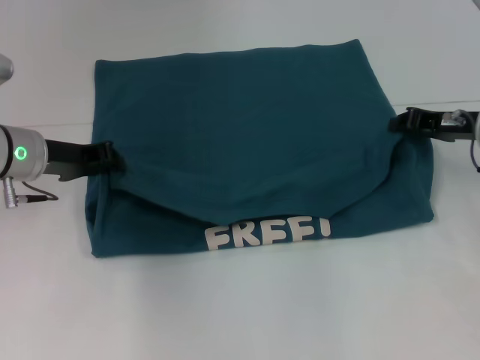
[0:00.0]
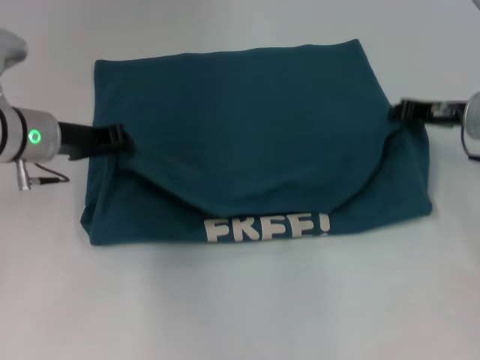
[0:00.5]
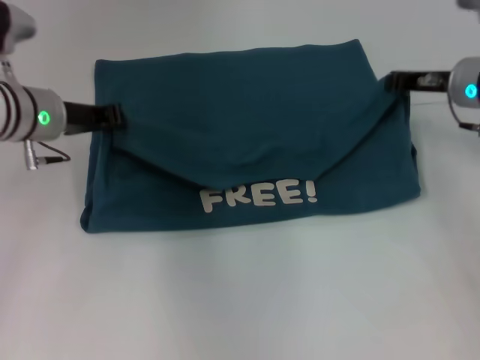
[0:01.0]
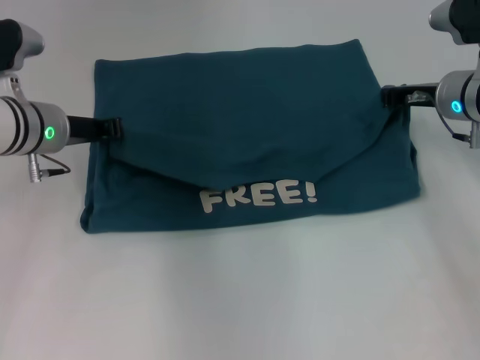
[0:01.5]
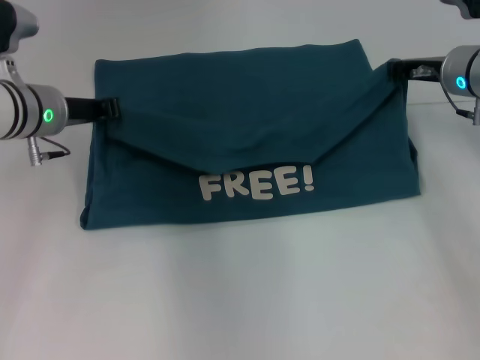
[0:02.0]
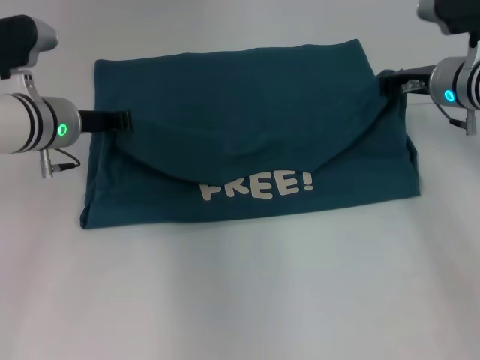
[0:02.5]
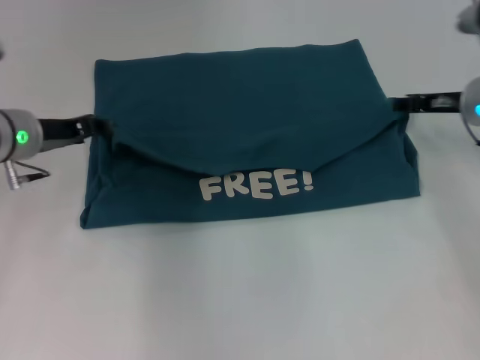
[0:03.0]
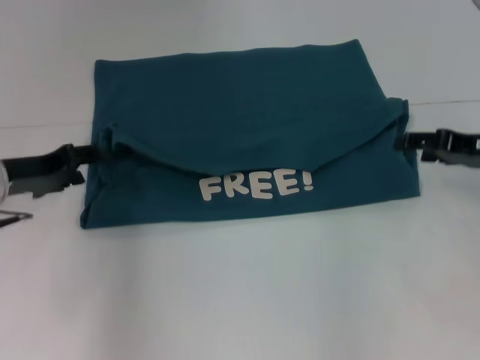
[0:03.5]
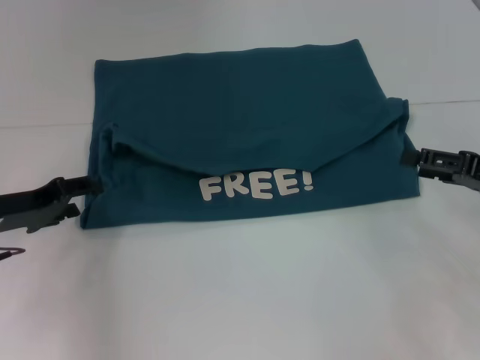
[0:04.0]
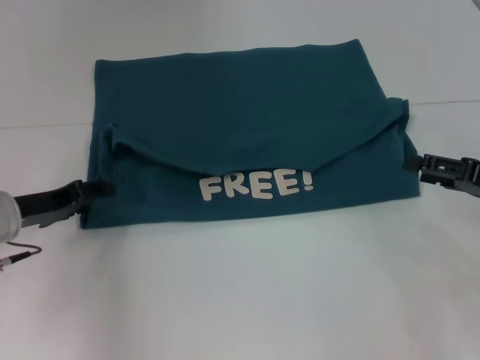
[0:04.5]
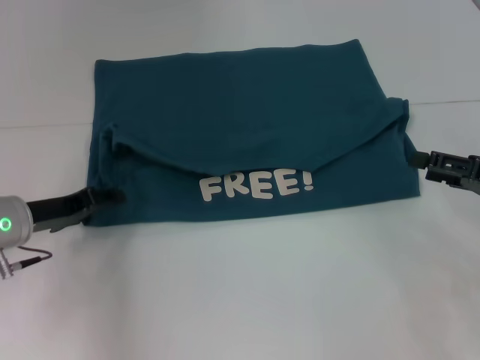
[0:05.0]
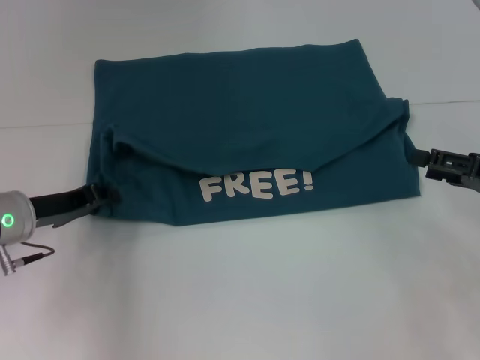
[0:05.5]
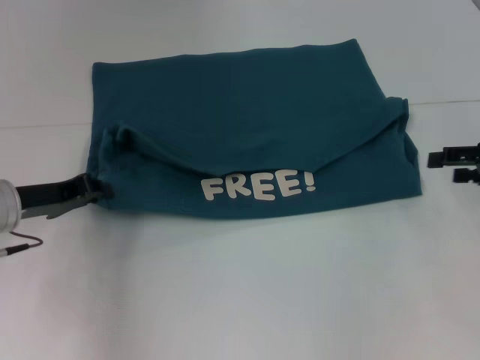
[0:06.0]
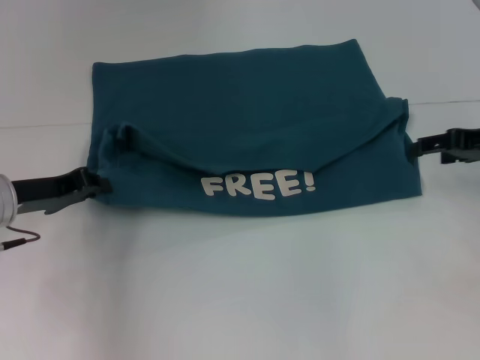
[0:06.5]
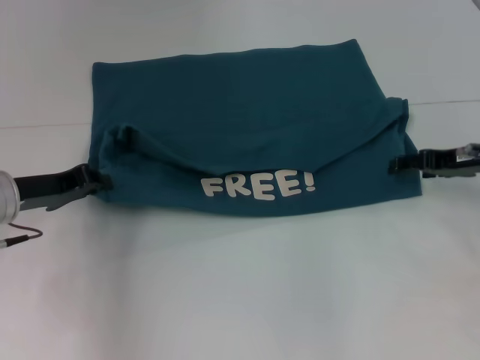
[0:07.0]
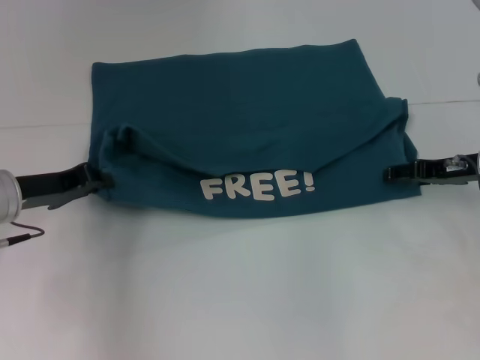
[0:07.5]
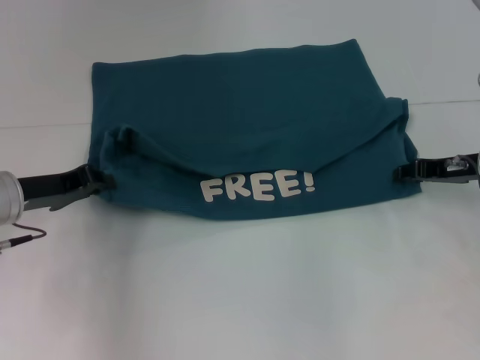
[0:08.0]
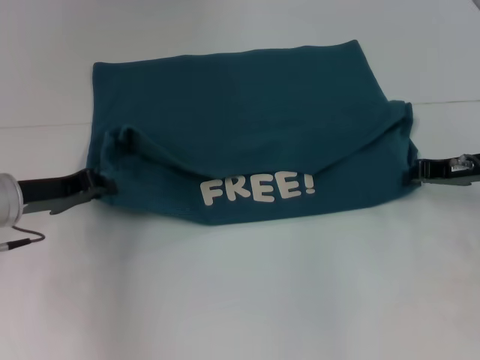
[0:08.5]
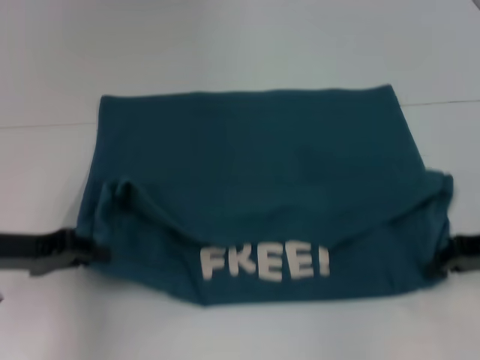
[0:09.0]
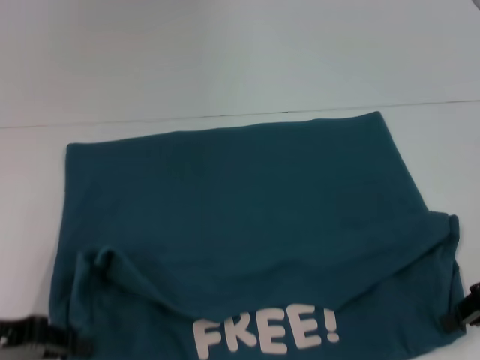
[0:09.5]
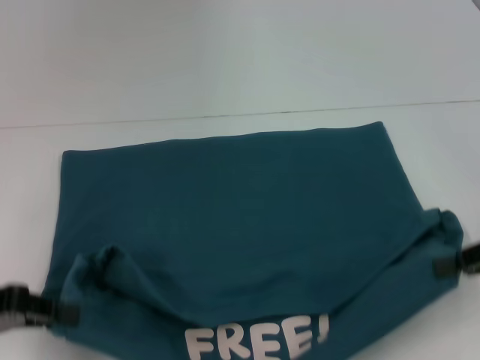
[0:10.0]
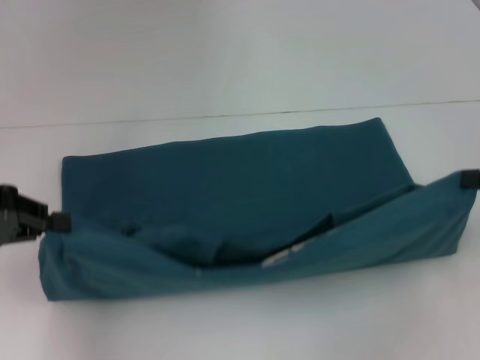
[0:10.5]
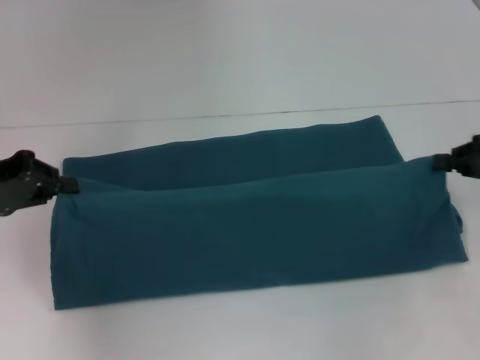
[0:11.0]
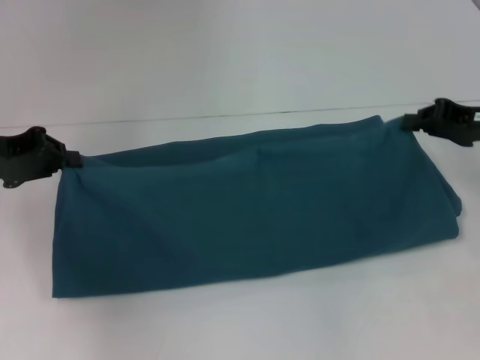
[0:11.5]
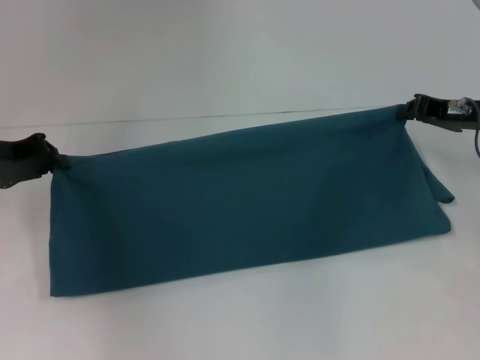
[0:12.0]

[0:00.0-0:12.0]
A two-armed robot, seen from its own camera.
Step, 0:00.0 to 0:03.0: Fold the clothes to the left.
Step, 0:00.0 to 0:03.0: Fold the clothes to the right.
Step, 0:03.5 to 0:09.5: Pull the clothes with your left hand.
Step, 0:03.5 to 0:09.5: Pull the clothes with your right hand.
0:00.0 to 0:02.0: The right gripper shifts roughly 5 cm forward.
0:02.0 to 0:04.0: The right gripper moves backward and to the right, about 15 cm, and opens its fingers, while the left gripper shifts some 15 cm backward, to the left and downward, and opens.
0:04.0 to 0:06.0: The left gripper closes its fingers.
0:06.0 to 0:08.0: The right gripper moves to the left, about 5 cm.
0:08.0 to 0:10.0: The left gripper is displaced backward and to the left by some 10 cm; the right gripper is displaced backward by approximately 10 cm, and closes its fingers.
0:10.0 to 0:12.0: Both grippers move forward, some 15 cm.

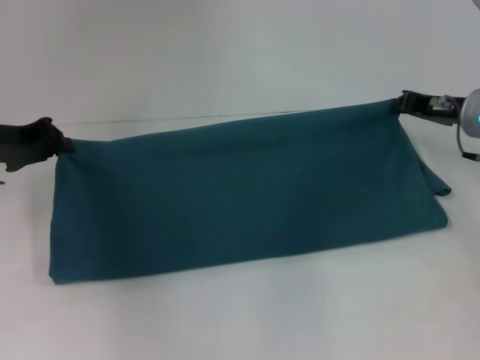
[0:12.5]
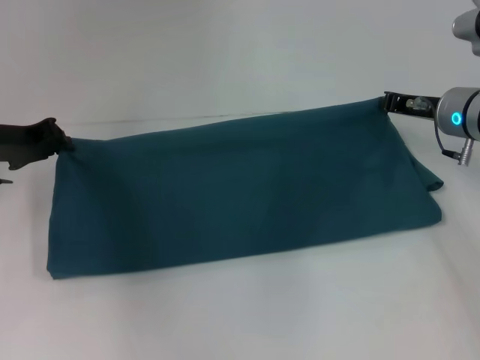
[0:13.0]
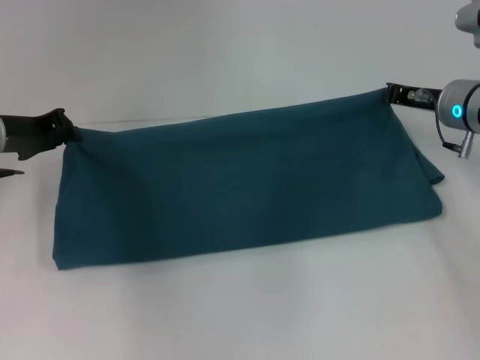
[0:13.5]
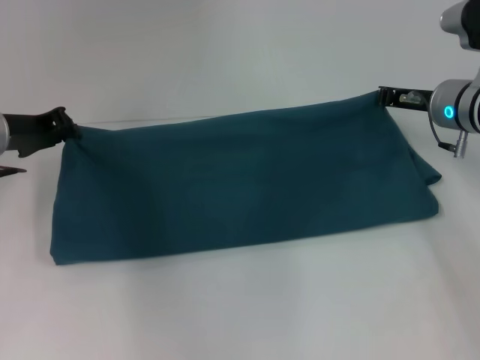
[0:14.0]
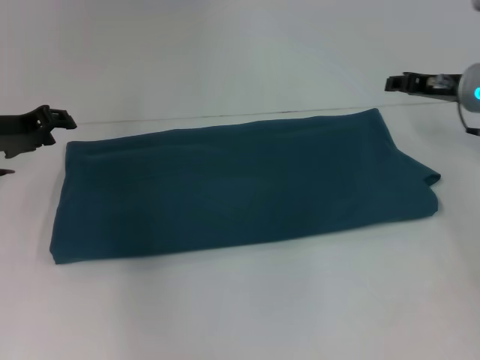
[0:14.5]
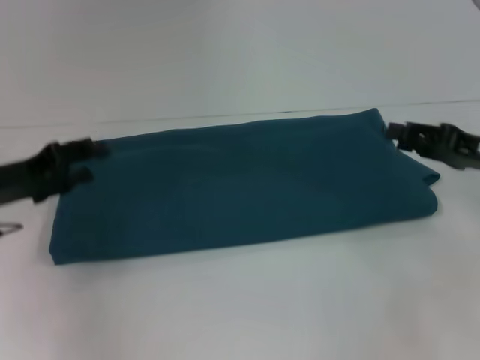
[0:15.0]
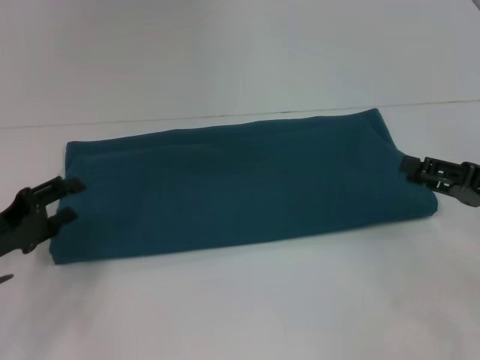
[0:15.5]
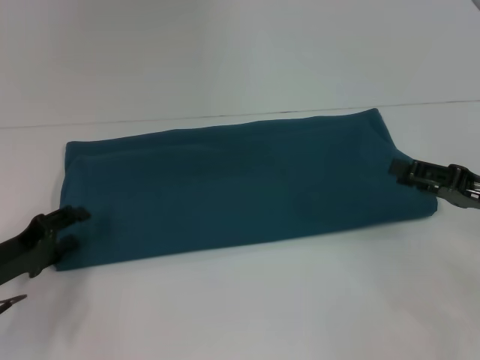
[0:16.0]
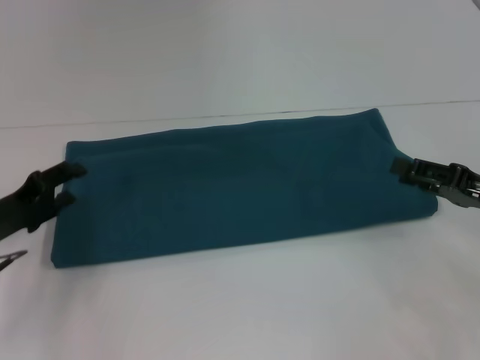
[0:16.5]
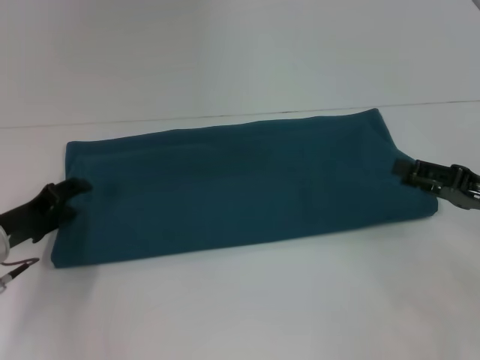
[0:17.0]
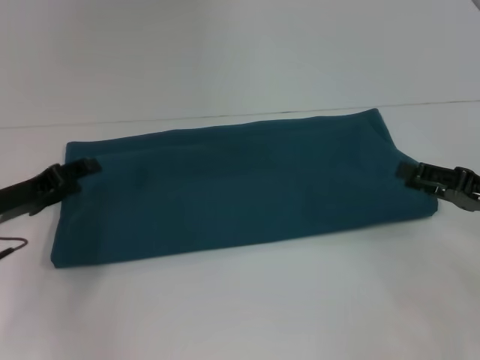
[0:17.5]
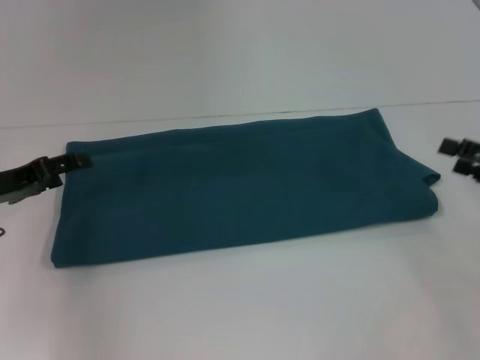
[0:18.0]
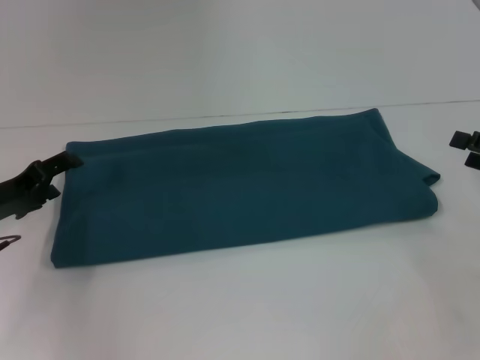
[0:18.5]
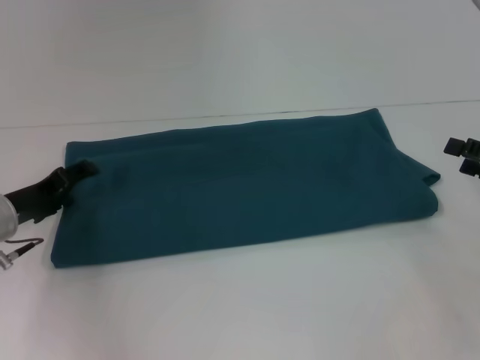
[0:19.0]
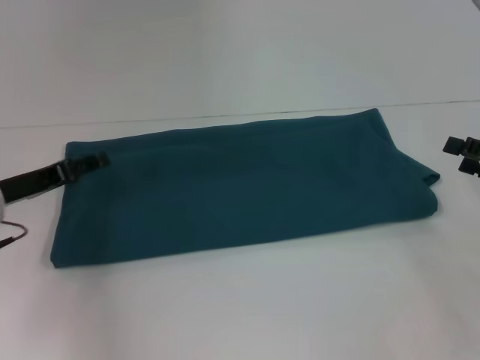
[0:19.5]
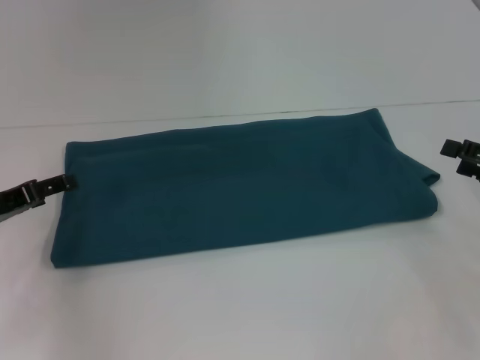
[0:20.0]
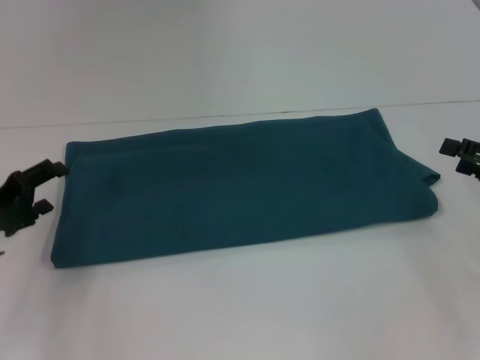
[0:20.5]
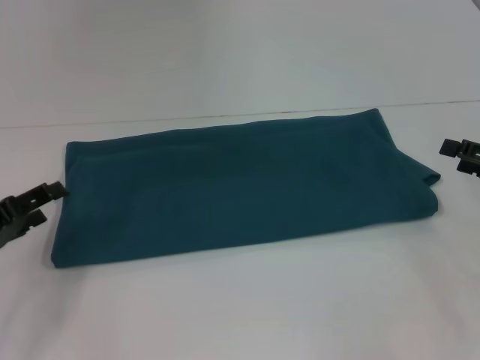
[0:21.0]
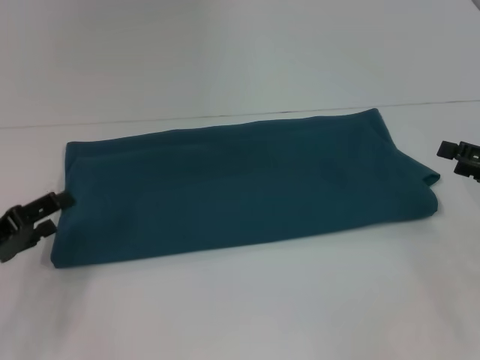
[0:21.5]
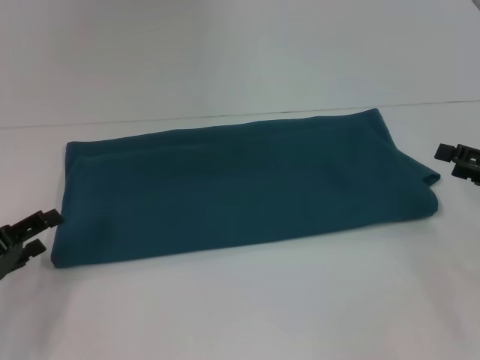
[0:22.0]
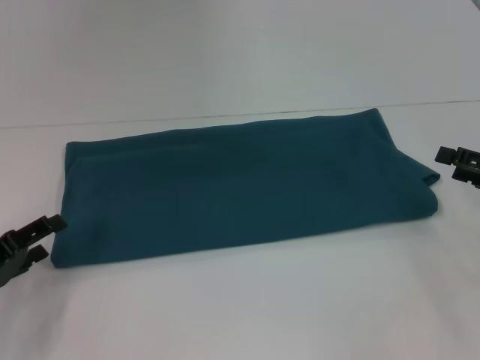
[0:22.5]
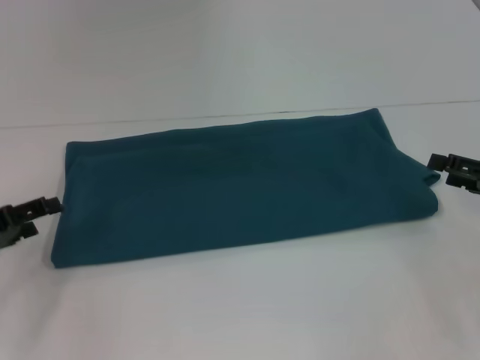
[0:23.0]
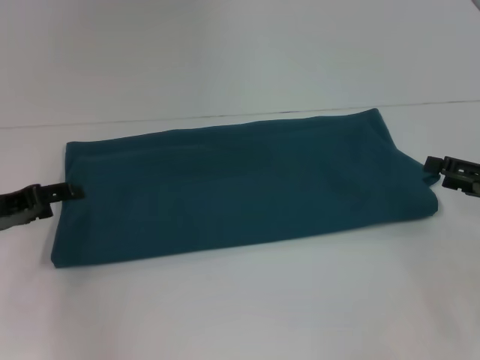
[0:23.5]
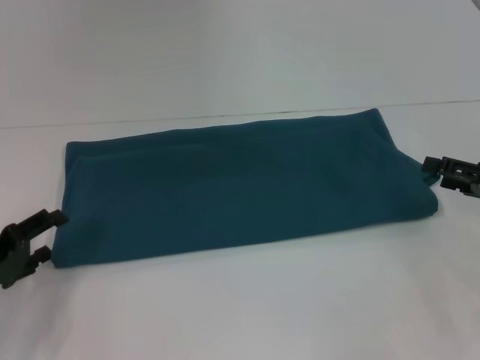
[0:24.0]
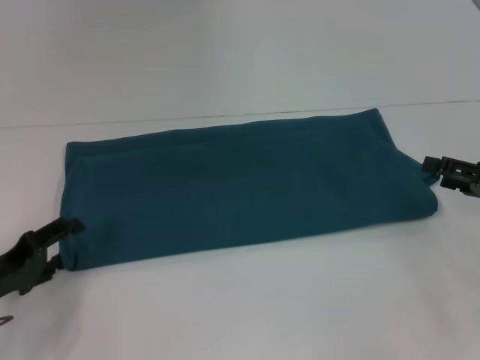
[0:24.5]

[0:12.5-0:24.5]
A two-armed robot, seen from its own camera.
0:12.5 to 0:14.5: The grippers stay close to where they were, moving slightly.
0:14.5 to 0:16.5: The right gripper travels backward by some 15 cm; the left gripper heads backward and downward, covering some 10 cm, and opens up.
0:16.5 to 0:18.5: The right gripper heads to the right, covering roughly 5 cm.
0:20.5 to 0:22.5: The left gripper moves backward, about 5 cm.
0:22.5 to 0:24.5: The left gripper travels forward and back again, roughly 10 cm each way.

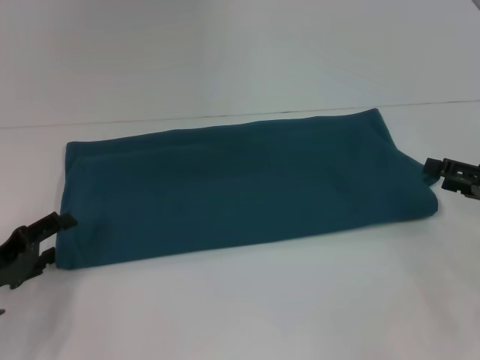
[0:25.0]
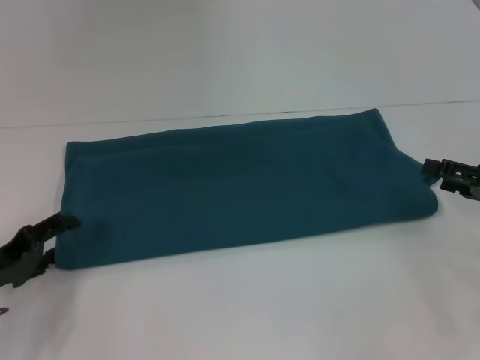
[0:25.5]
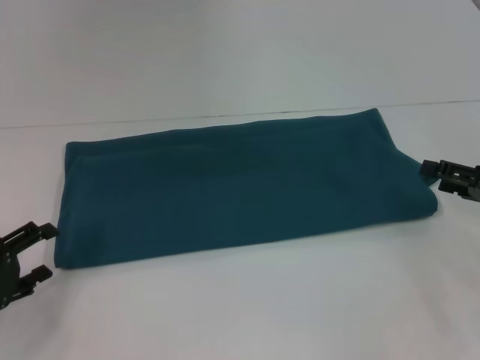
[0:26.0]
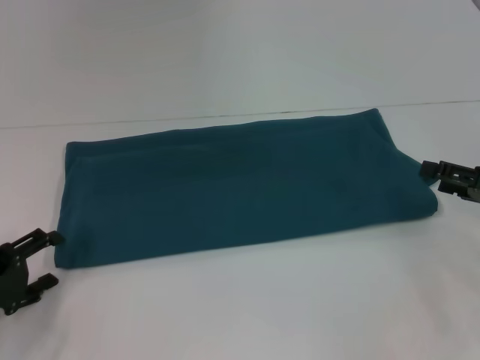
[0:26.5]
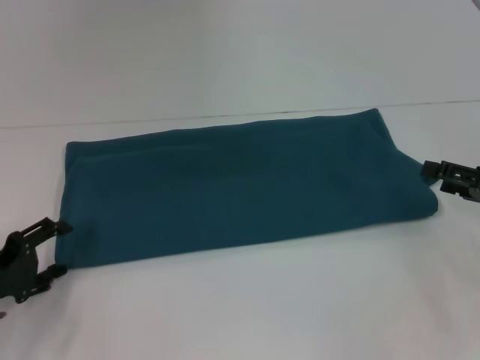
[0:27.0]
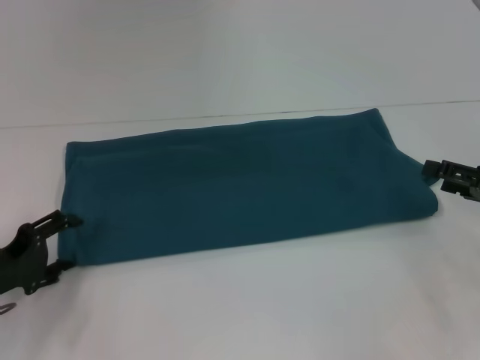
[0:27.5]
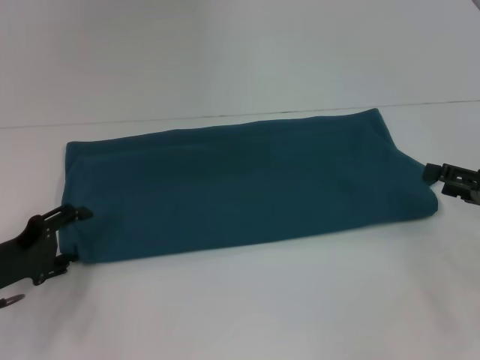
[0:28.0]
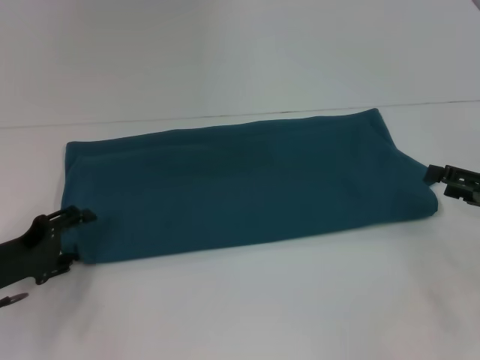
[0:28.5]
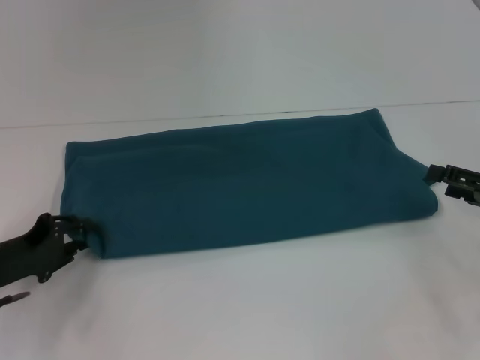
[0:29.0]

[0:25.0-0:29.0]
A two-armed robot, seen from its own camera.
0:25.0 to 0:27.0: There are only small adjustments of the grippers.
0:27.0 to 0:29.0: The left gripper closes.
